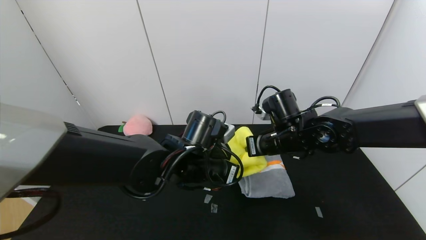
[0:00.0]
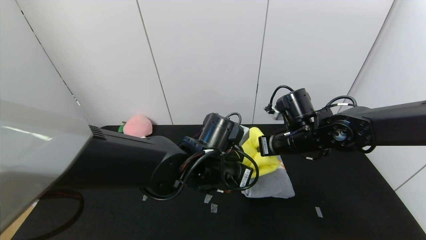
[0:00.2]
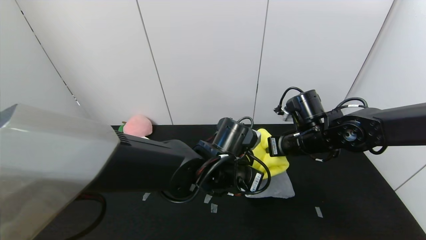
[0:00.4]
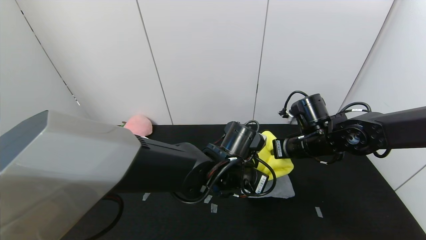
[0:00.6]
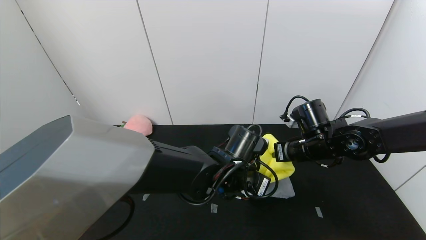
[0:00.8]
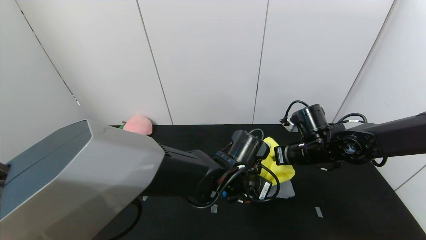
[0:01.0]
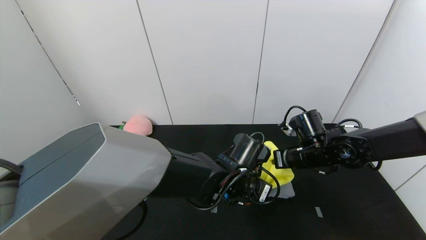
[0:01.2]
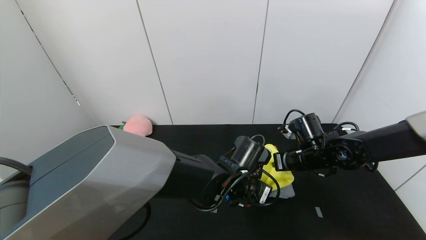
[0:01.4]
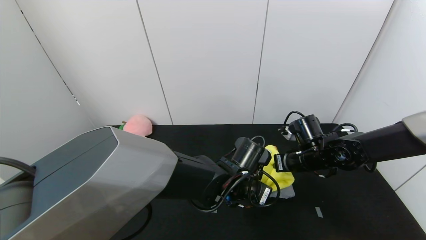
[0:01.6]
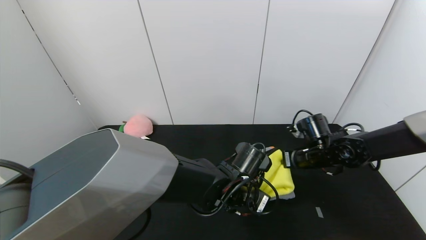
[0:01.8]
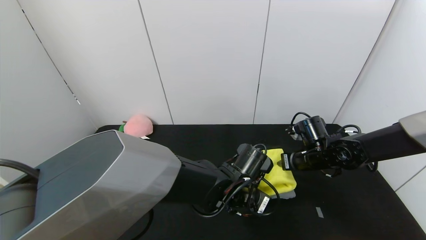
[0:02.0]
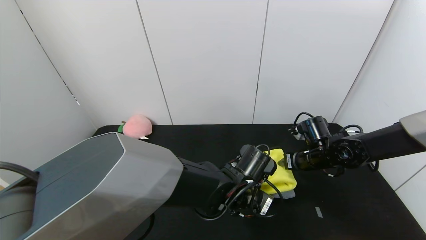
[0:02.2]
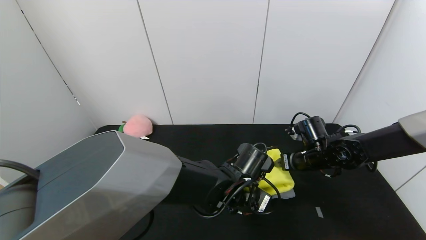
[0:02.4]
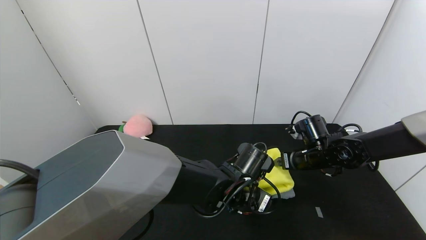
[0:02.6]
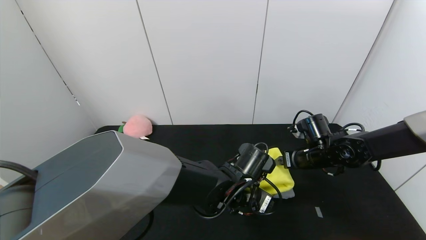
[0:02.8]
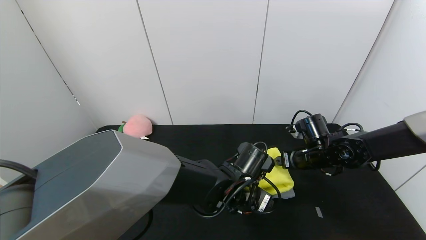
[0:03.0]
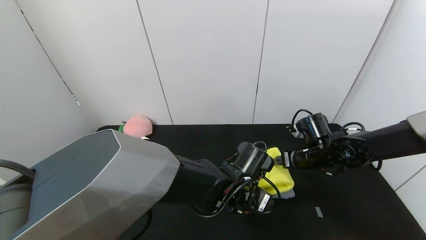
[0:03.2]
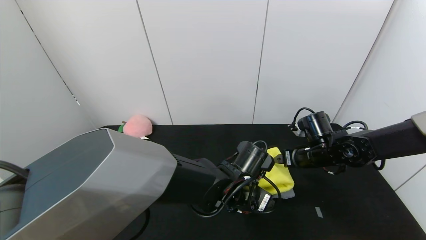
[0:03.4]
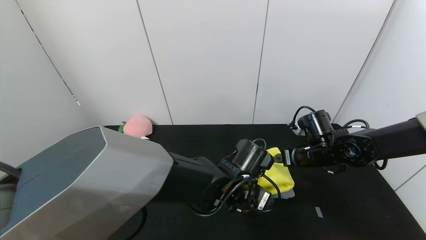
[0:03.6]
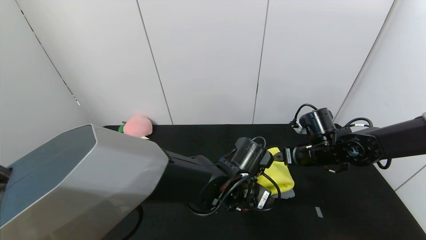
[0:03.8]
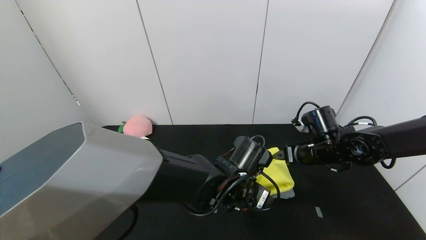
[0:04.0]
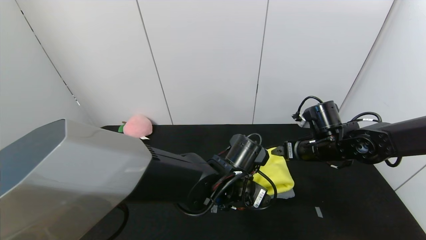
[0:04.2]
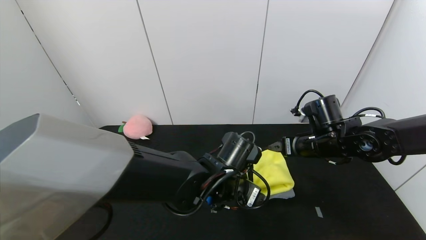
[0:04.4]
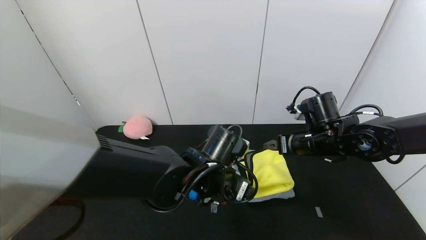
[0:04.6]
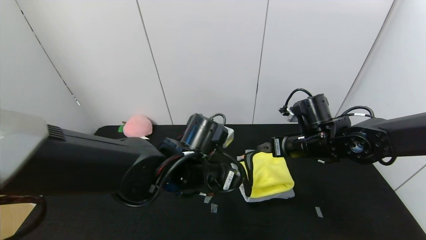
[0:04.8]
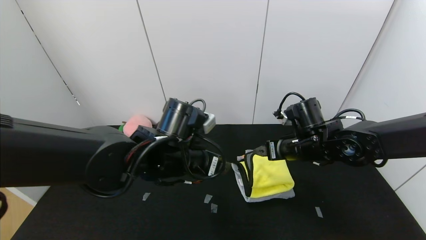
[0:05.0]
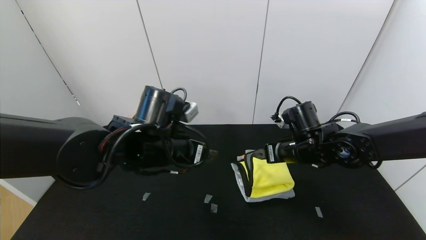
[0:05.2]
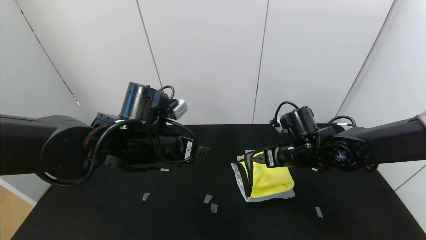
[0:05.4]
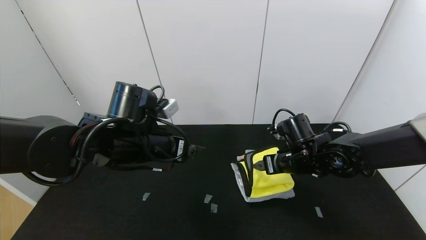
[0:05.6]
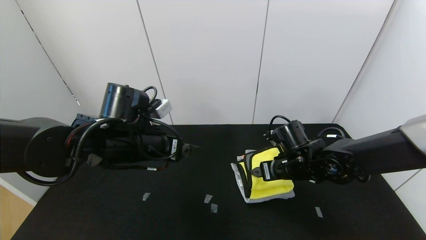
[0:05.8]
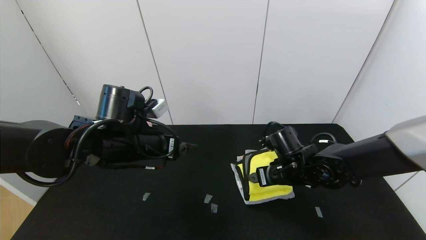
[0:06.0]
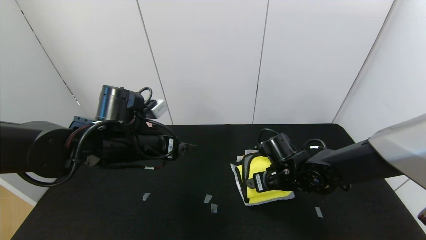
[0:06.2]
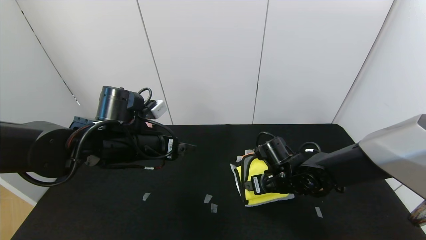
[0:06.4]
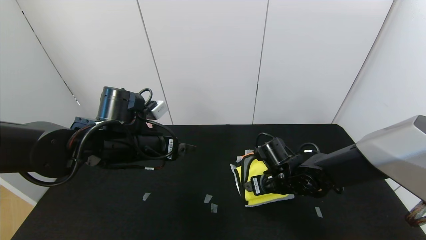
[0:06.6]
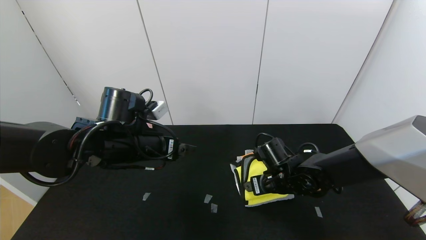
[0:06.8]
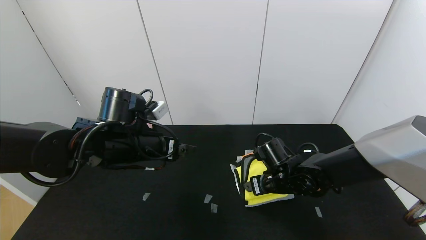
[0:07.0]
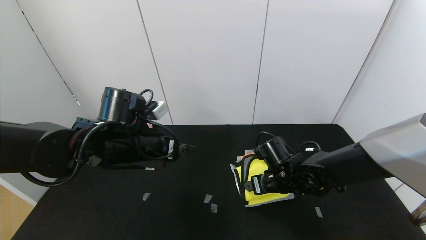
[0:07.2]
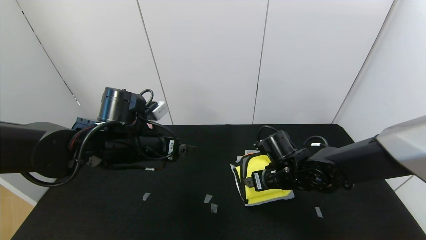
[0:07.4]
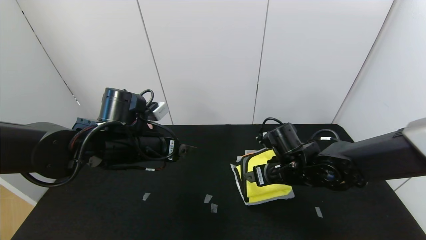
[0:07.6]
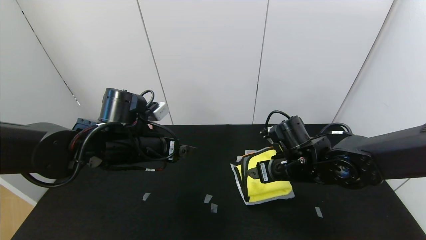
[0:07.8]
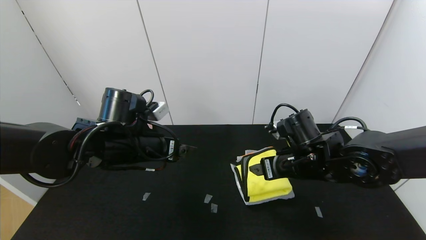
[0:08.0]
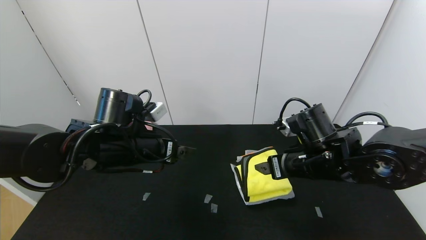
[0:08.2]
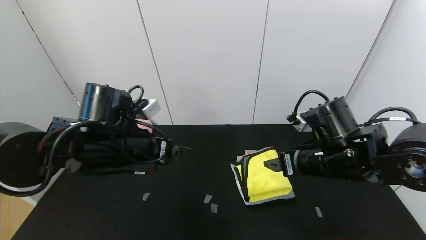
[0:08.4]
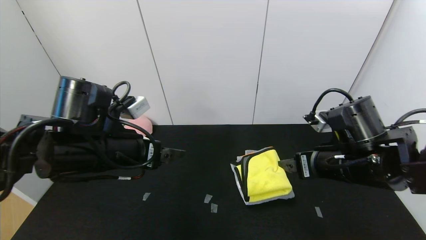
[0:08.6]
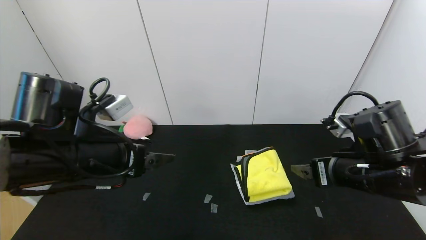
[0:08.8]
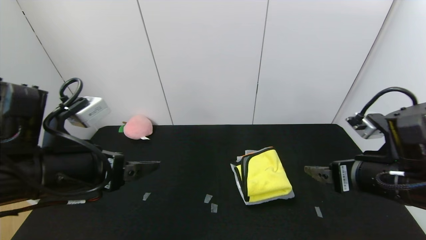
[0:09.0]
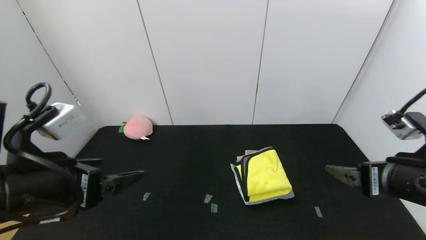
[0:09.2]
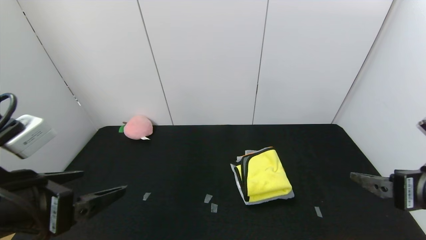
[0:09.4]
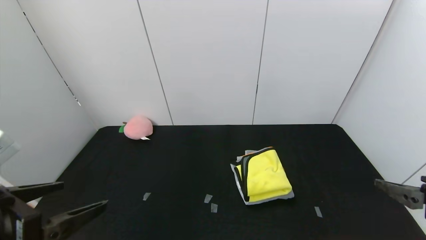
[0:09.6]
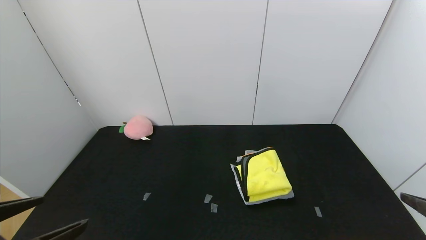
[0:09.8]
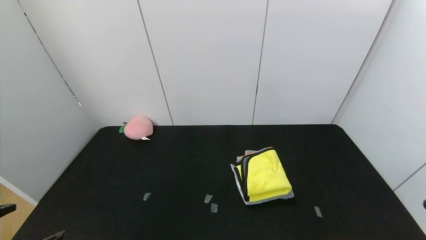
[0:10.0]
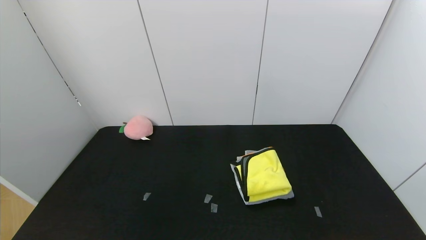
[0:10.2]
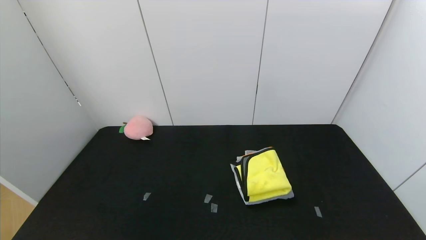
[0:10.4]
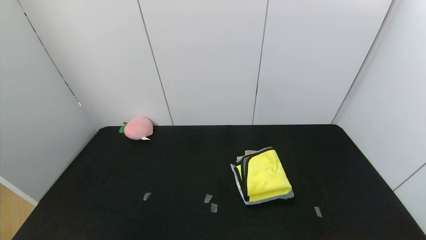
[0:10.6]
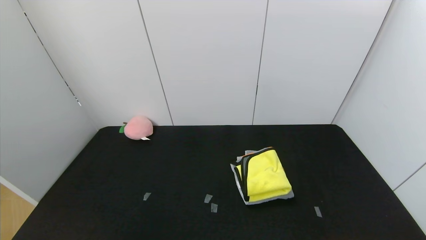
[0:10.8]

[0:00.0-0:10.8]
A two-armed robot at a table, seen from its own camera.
Task of the whole recording: Use the gripper to fold the yellow towel and grey towel in half twice,then put the yellow towel on the grey towel.
Step, 0:00.0 to 0:04.0: Place the yellow towel on the gray towel with the left gripper.
Step, 0:04.4 to 0:07.8: Press the yellow towel with the right gripper.
0:00.0 to 0:01.6: Both grippers travel together to the right and downward, about 10 cm.
0:01.6 to 0:03.0: The left gripper opens, while the right gripper opens its fingers.
0:03.0 to 0:04.6: The right gripper shifts roughly 5 cm upward. Meanwhile the left gripper shifts by some 5 cm.
0:04.6 to 0:06.2: The left gripper travels to the left by some 15 cm, while the right gripper shifts approximately 10 cm downward and to the left.
0:06.2 to 0:07.8: The right gripper is displaced upward by about 5 cm.
0:07.8 to 0:09.2: The right gripper moves backward, to the right and upward, roughly 20 cm, while the left gripper moves backward and to the left, some 15 cm.
0:09.2 to 0:10.8: The two grippers go about 20 cm backward.
